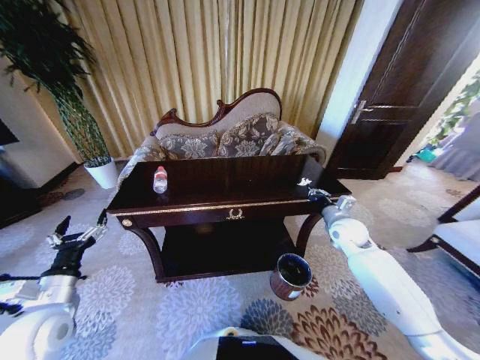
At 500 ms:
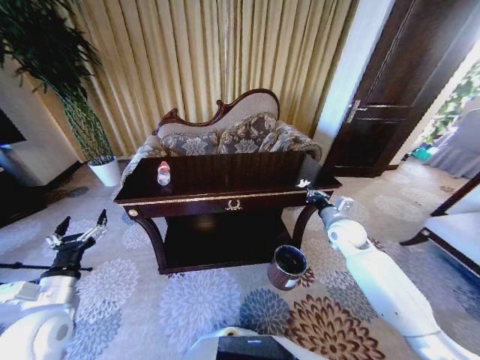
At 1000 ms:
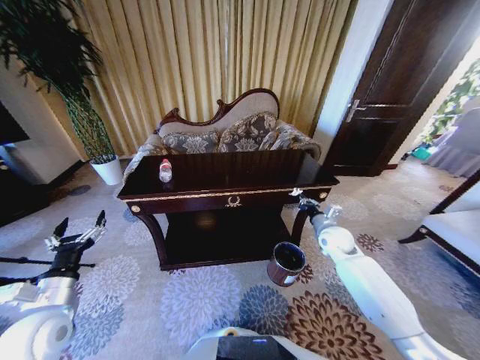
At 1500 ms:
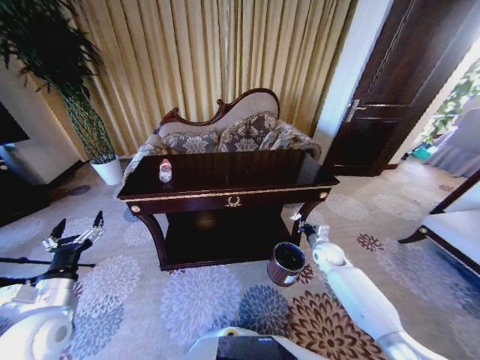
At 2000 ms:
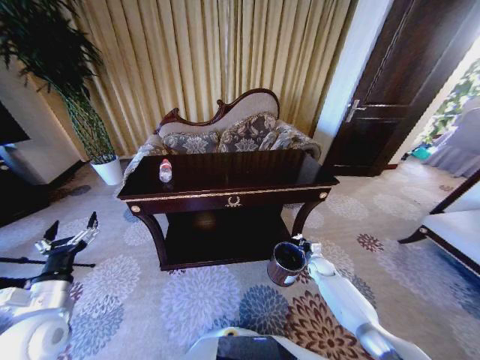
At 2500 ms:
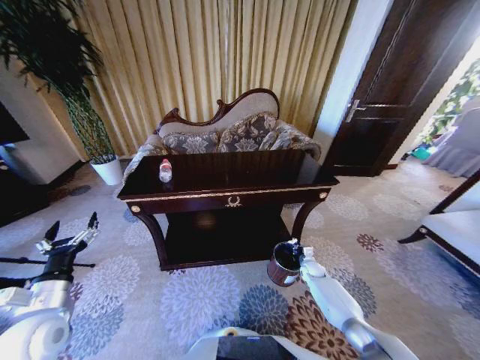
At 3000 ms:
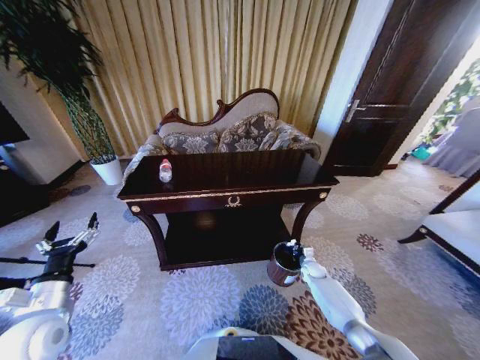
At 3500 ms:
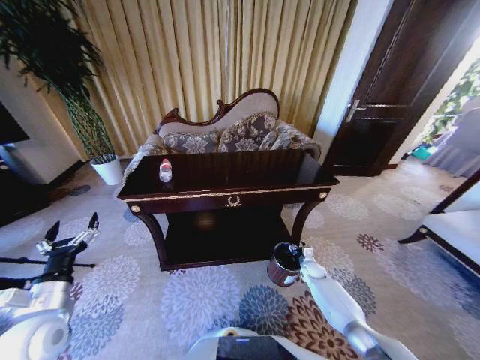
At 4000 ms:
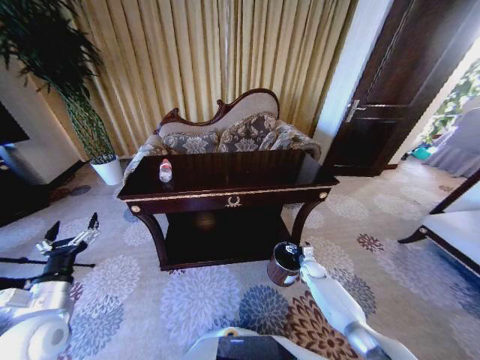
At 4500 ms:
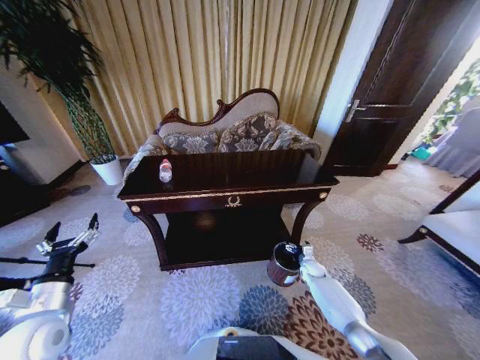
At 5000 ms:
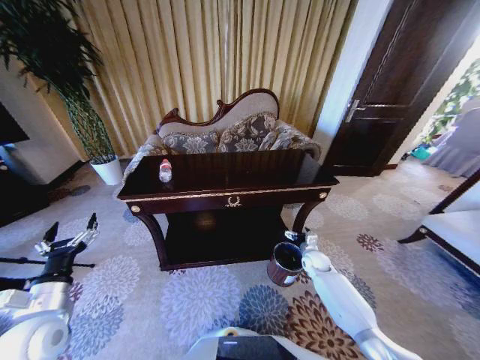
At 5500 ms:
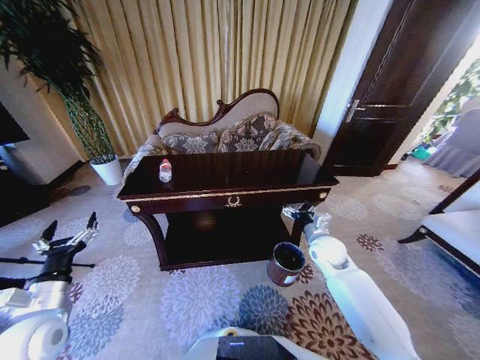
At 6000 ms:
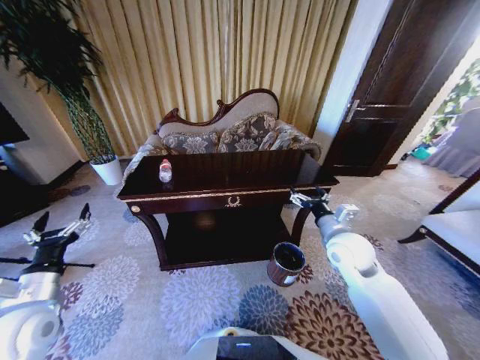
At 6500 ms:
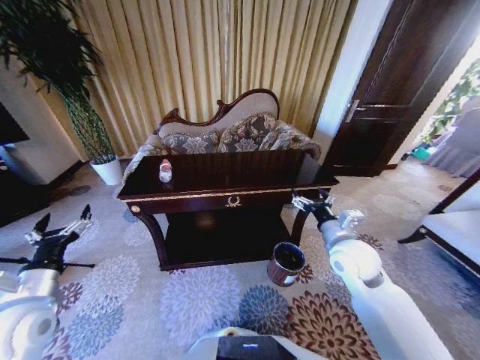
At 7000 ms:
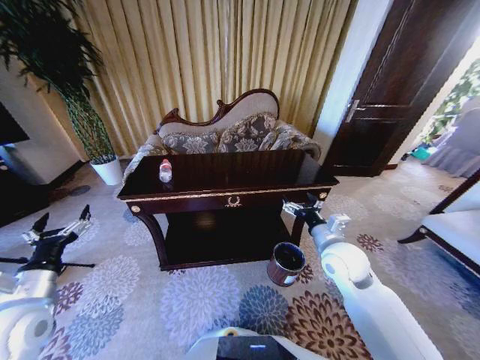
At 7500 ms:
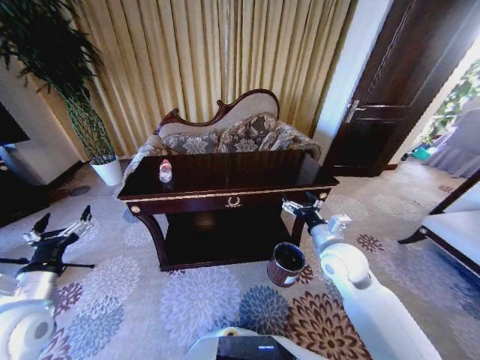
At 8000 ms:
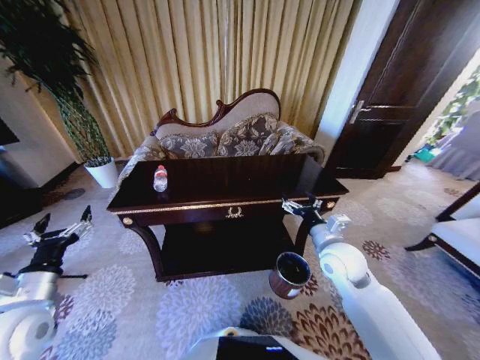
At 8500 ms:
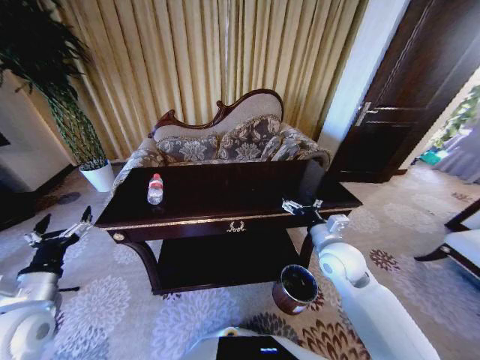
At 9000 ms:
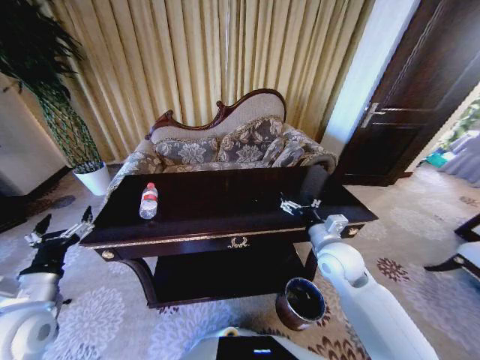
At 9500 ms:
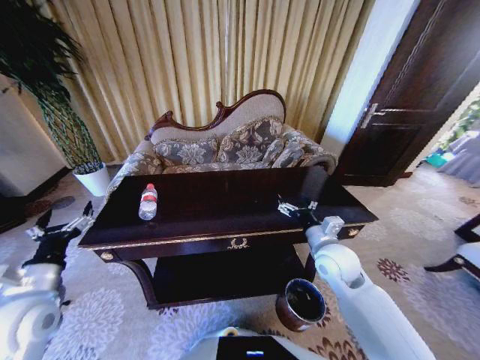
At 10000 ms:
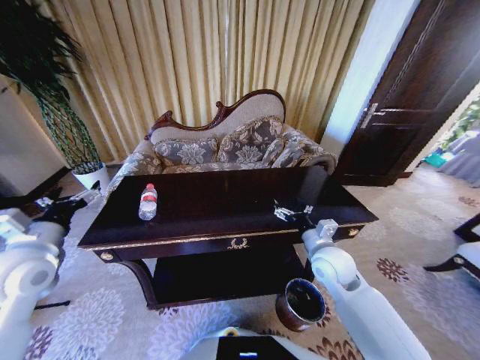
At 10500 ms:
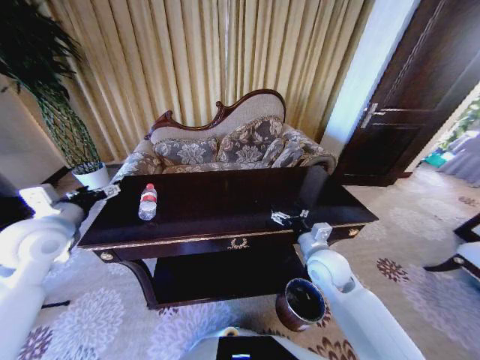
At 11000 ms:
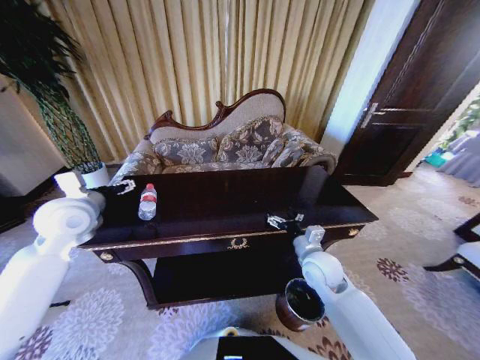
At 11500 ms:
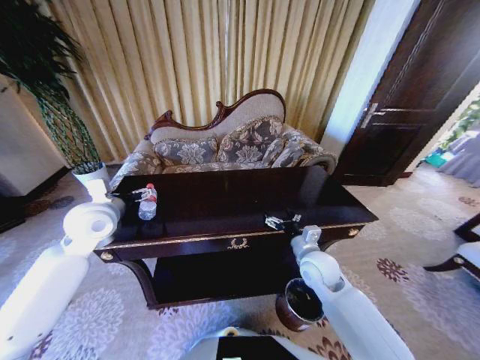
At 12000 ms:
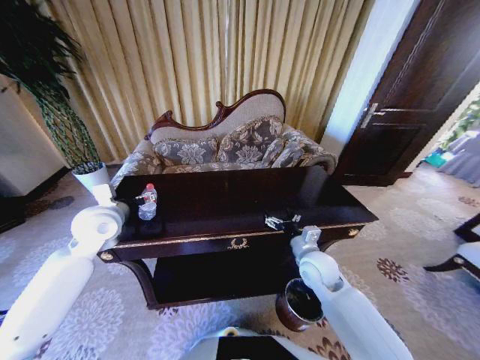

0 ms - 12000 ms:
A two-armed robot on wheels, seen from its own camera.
Task of the whole recording: Move to the front of the table and place the trash on the table into the trash bin.
0 ms - 2000 ms: The right gripper goes approximately 25 cm downward.
2000 ms - 4000 ms: The right gripper opens up.
4000 ms - 6000 ms: The right gripper goes some 35 cm upward.
8000 ms - 10000 ms: The left gripper shifts approximately 10 cm forward and upward.
10000 ms - 12000 ms: The left gripper travels forward and to the right by some 15 cm.

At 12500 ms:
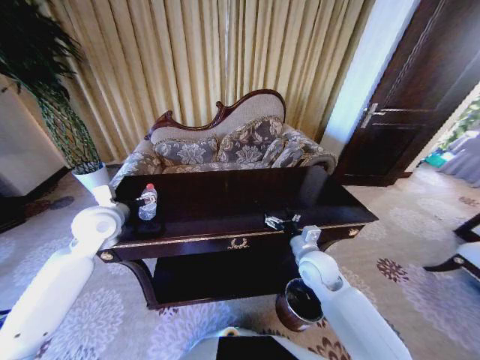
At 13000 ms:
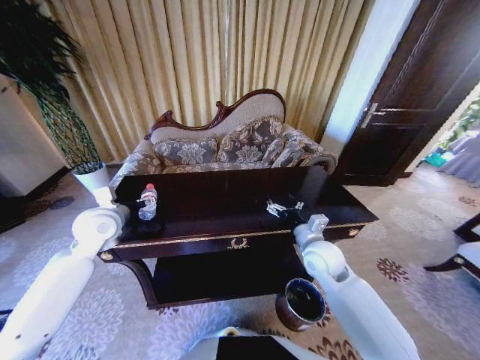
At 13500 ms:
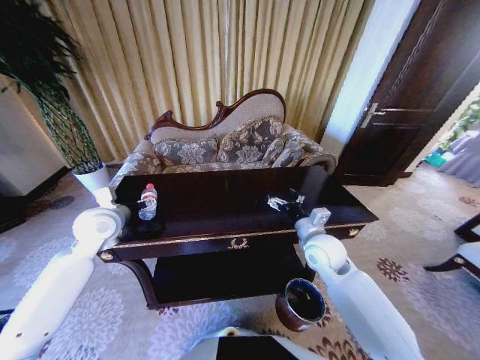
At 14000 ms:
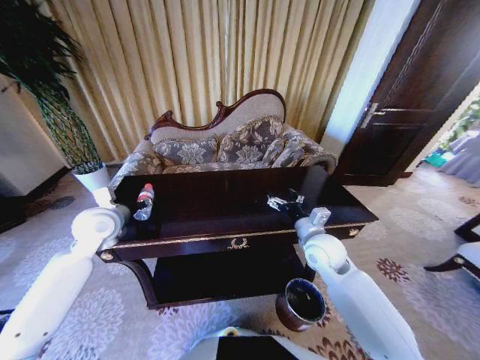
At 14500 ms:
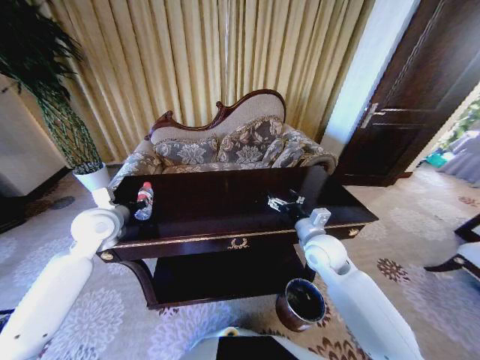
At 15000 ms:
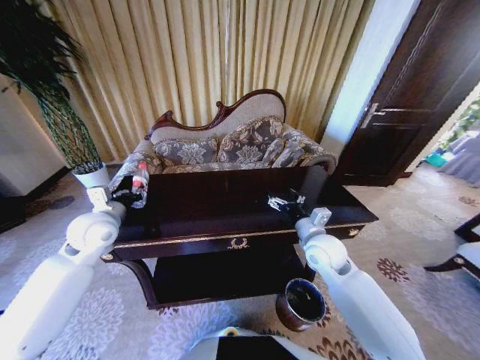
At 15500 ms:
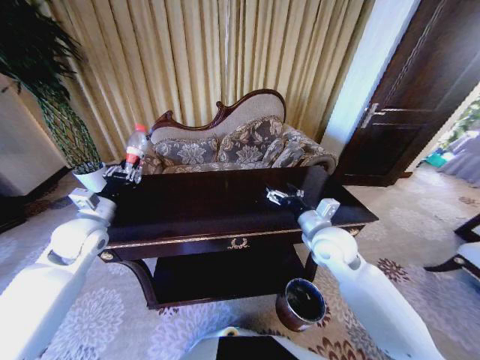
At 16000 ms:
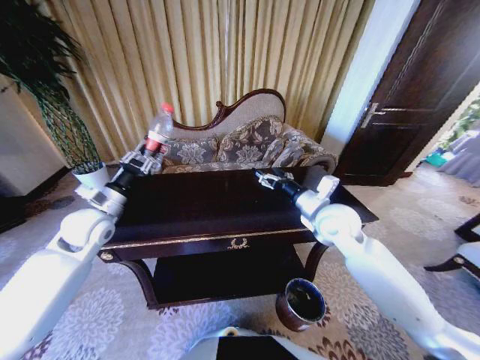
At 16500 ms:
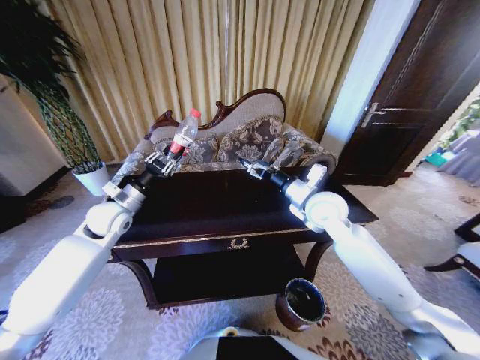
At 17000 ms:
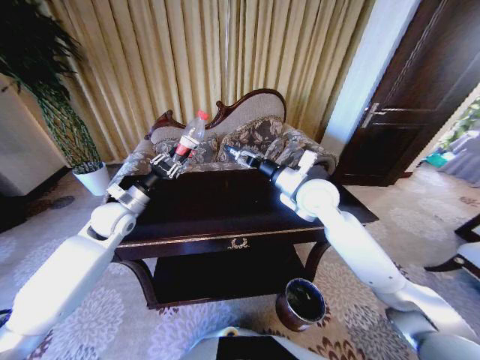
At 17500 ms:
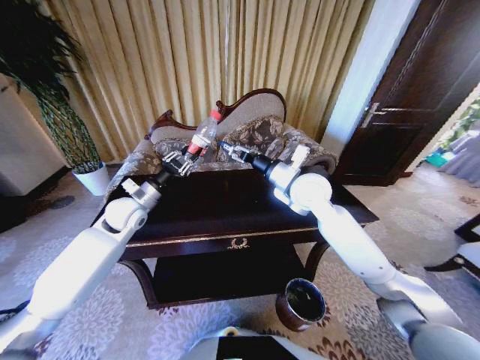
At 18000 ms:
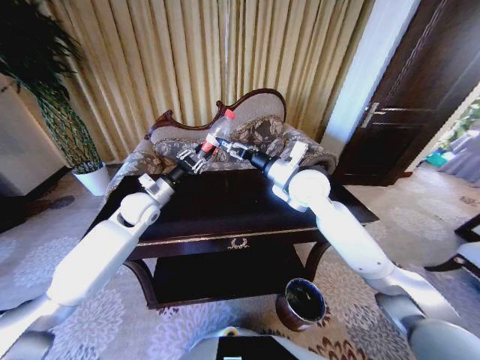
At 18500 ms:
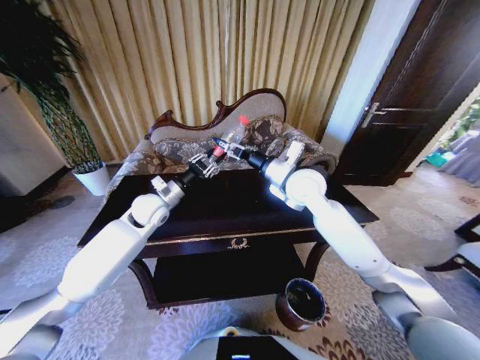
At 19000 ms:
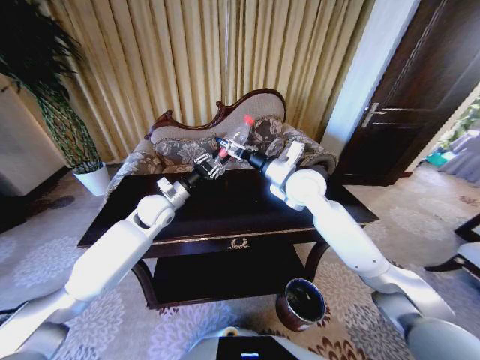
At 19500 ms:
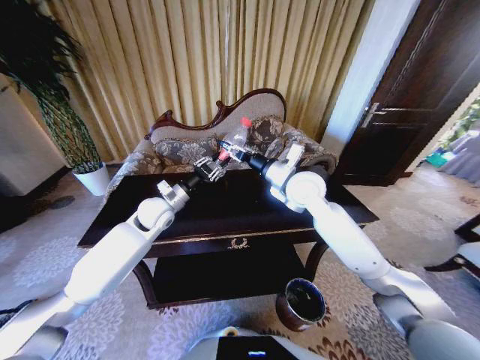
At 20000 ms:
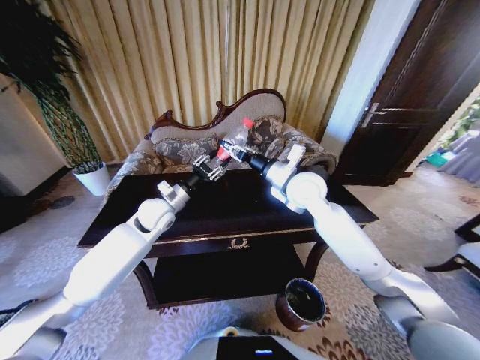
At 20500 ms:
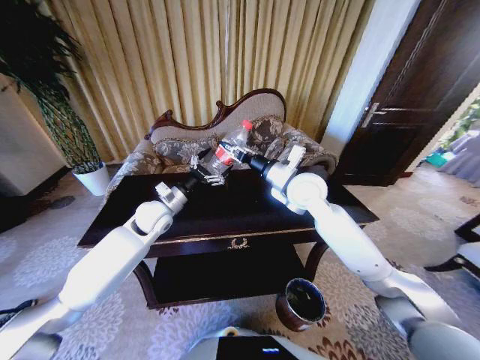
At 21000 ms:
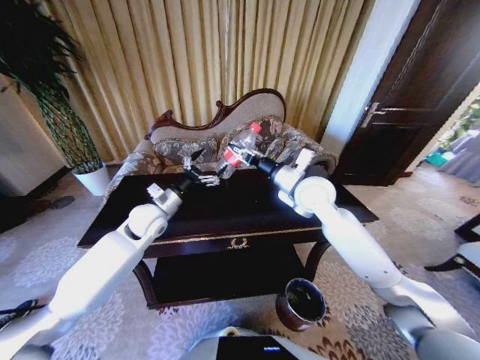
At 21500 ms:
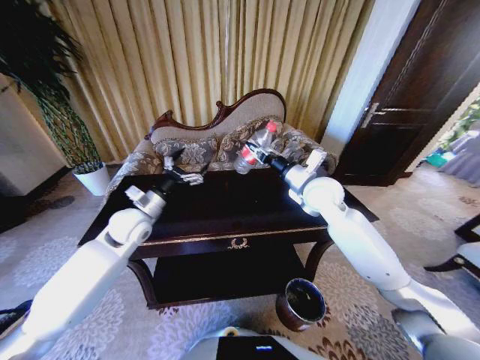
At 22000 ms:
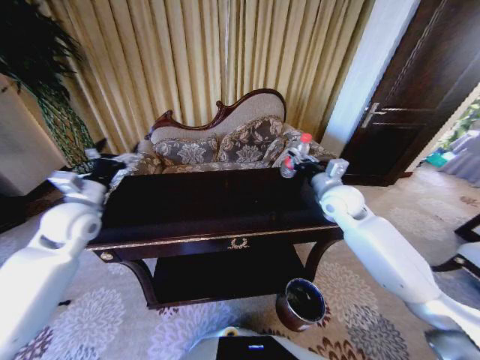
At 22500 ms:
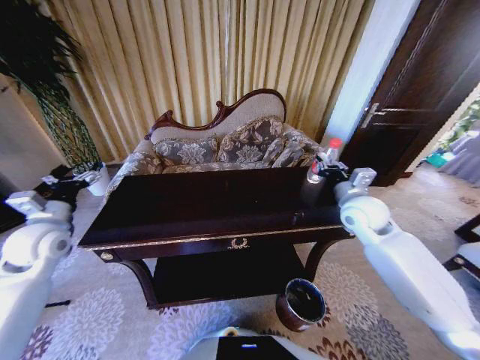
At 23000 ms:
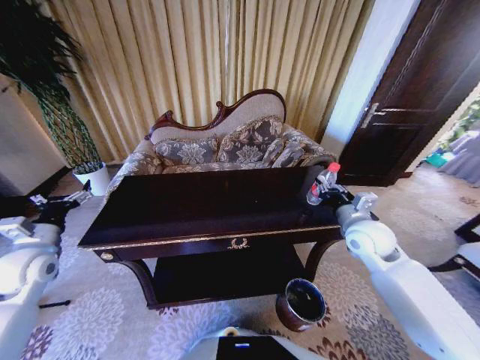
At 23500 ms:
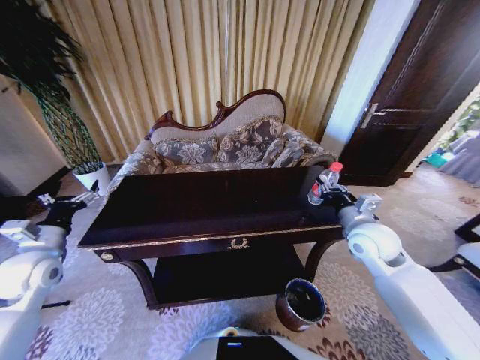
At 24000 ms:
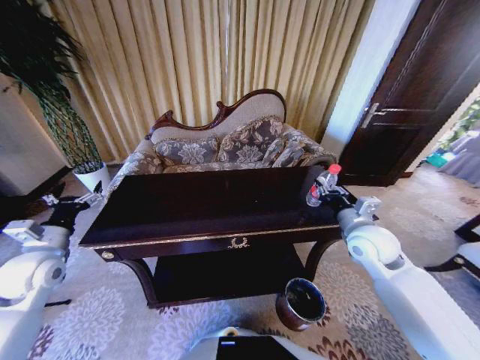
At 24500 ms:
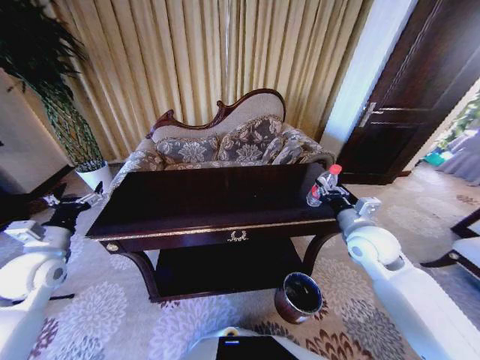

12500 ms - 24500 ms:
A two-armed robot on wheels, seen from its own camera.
Task of the whole recording: Move to the front of the table and place the trash on the table into the trash bin.
12500 ms - 14500 ms: The right gripper moves roughly 5 cm; the left gripper closes up.
14500 ms - 16500 ms: The right gripper moves upward and forward, roughly 10 cm.
16500 ms - 18500 ms: The left gripper travels to the right by approximately 10 cm, while the right gripper goes some 5 cm to the left.
18500 ms - 20500 ms: The right gripper closes. The left gripper opens.
20500 ms - 22500 ms: The right gripper travels to the right by about 15 cm. The left gripper travels to the left and backward by about 25 cm.
22500 ms - 24500 ms: The right gripper travels backward by approximately 5 cm; the left gripper shifts by roughly 5 cm.

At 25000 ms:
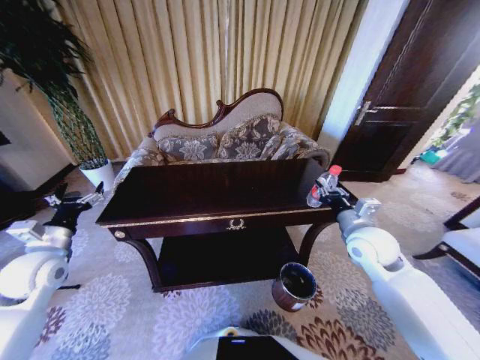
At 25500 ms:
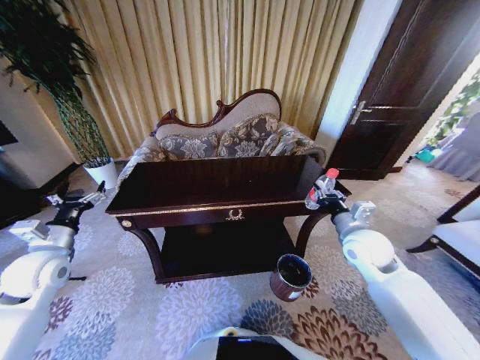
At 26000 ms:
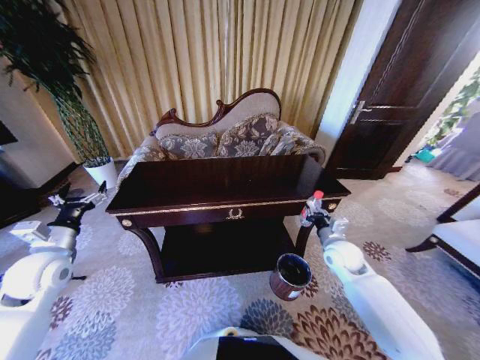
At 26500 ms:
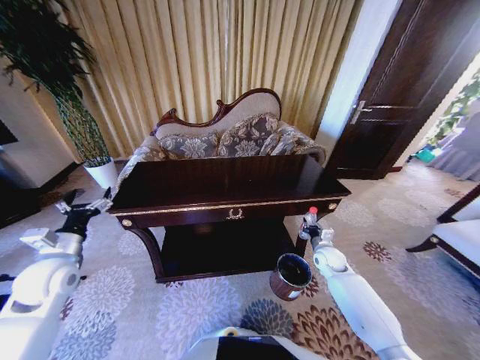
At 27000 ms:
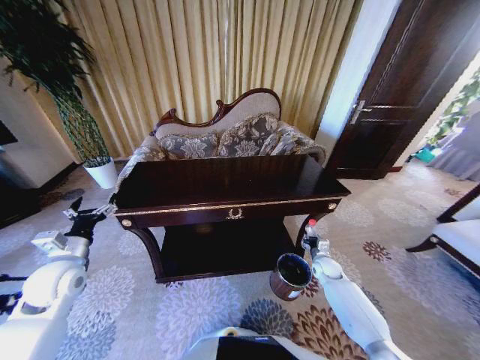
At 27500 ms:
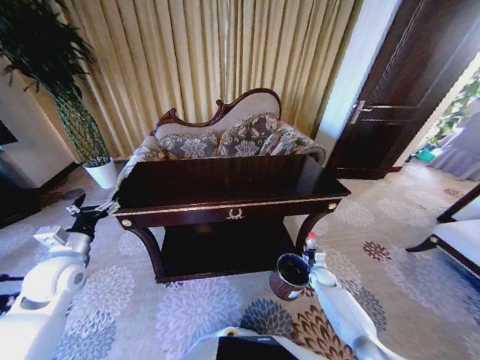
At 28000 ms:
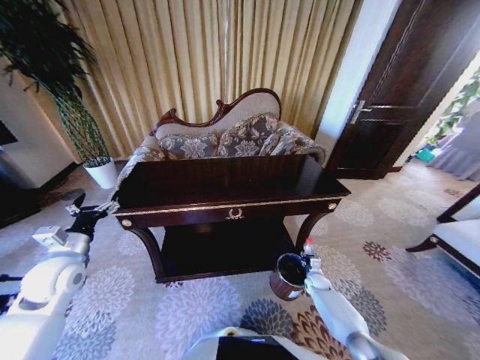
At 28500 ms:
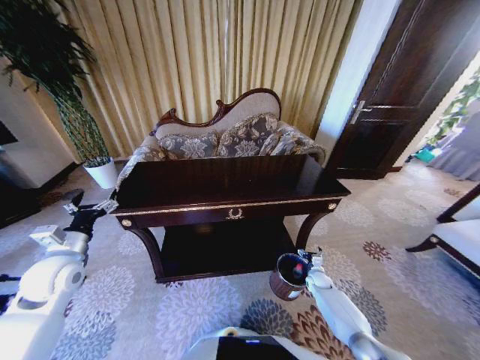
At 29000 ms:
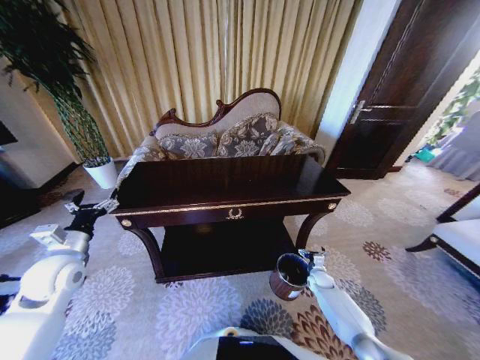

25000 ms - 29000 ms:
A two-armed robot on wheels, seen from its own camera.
Task of the whole recording: Move to the front of the table and place the trash on the table into the trash bin.
25000 ms - 27000 ms: The right gripper moves downward, some 30 cm.
27000 ms - 29000 ms: The right gripper moves downward, roughly 10 cm, and opens up.
